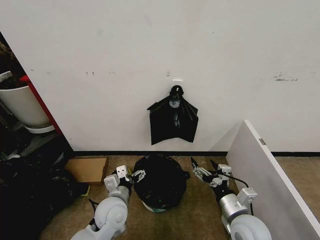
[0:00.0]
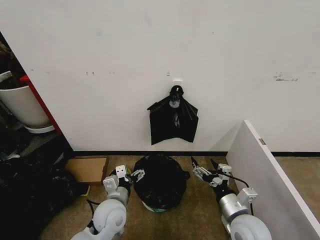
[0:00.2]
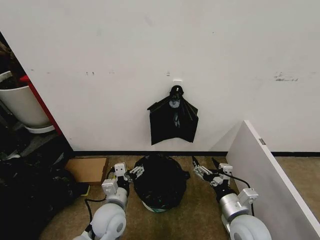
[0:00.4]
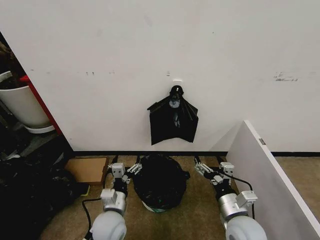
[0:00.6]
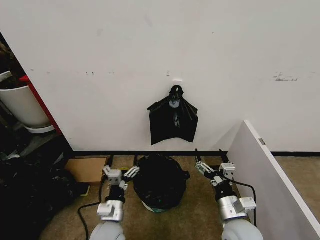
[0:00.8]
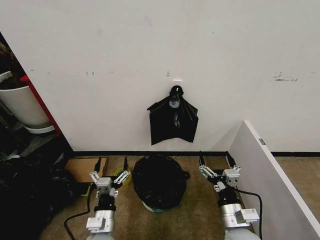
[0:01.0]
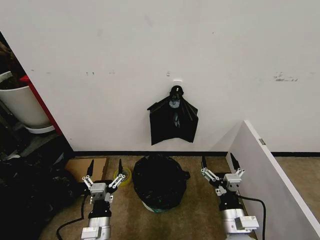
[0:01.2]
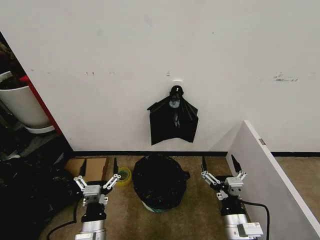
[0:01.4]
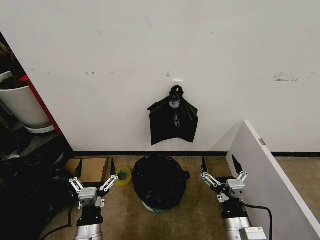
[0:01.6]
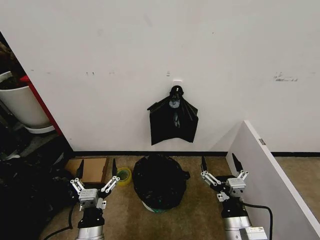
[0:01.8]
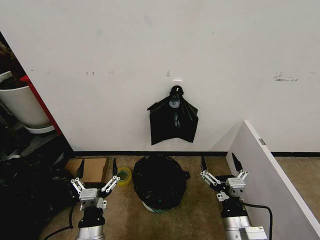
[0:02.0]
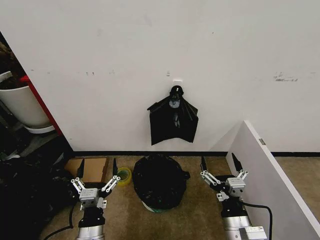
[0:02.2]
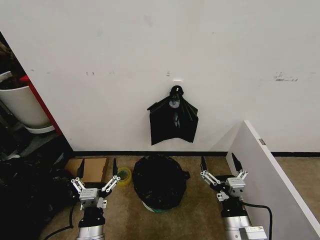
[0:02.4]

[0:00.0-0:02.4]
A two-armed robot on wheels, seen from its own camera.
Task of the whole recording: Place the garbage bag over the trash bin.
0:00.0 to 0:01.2: The left gripper heads backward, covering approximately 10 cm, while the right gripper moves approximately 5 cm.
0:01.2 to 0:02.4: There are only small adjustments of the grippers.
